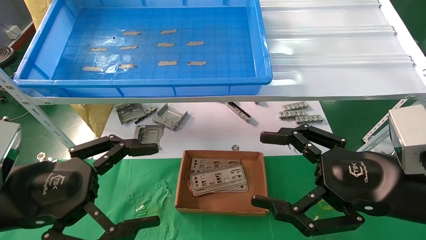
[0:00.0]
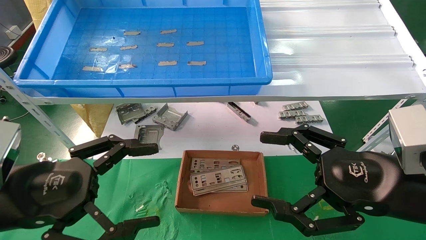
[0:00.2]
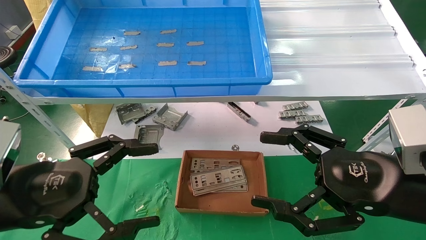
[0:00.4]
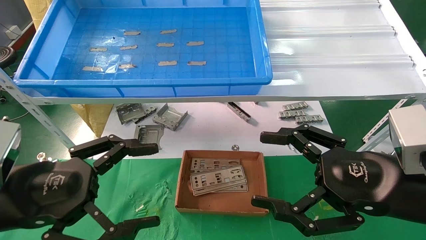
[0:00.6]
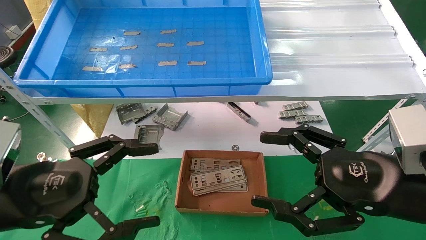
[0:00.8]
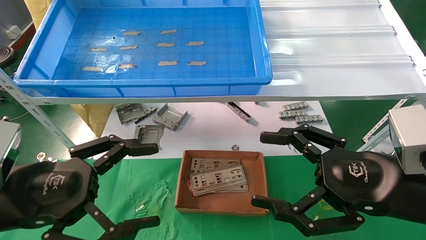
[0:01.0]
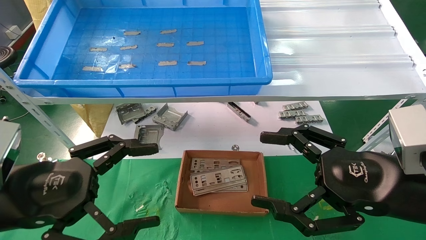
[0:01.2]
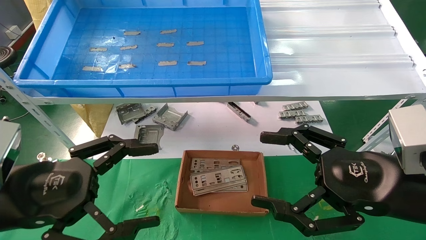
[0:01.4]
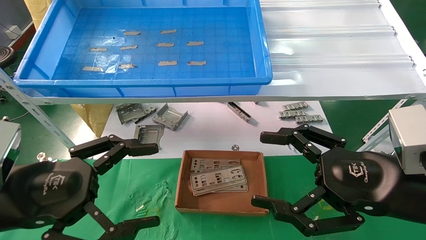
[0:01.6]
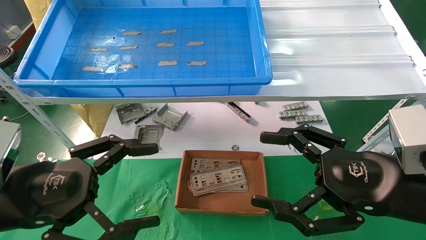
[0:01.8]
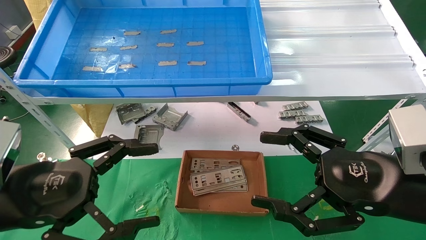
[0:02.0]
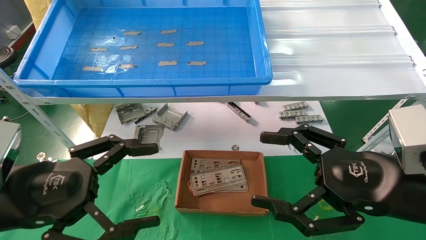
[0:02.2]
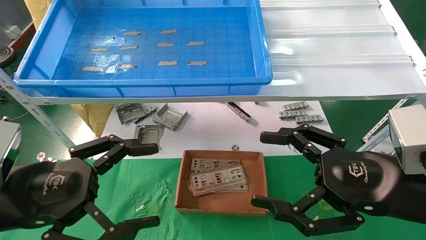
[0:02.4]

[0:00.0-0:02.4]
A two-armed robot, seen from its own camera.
Task of the whole recording: pick up the parts on the tray and put them in the cardboard box.
0:00.0 to 0:02.4: The two grippers keep their place.
